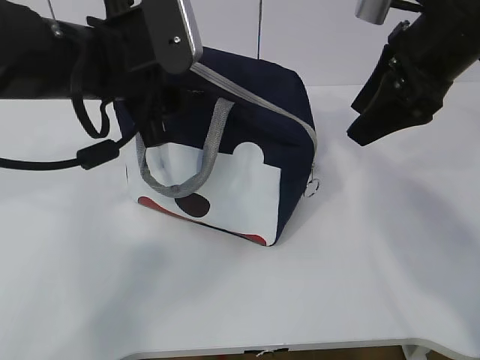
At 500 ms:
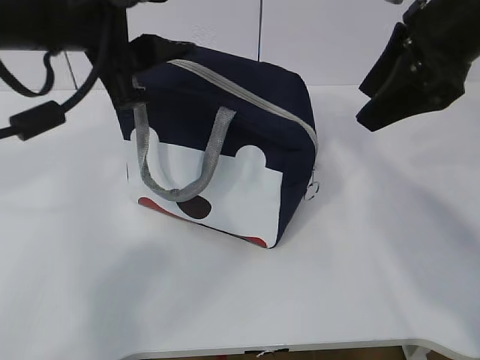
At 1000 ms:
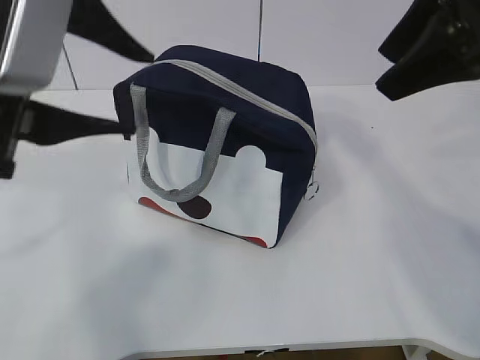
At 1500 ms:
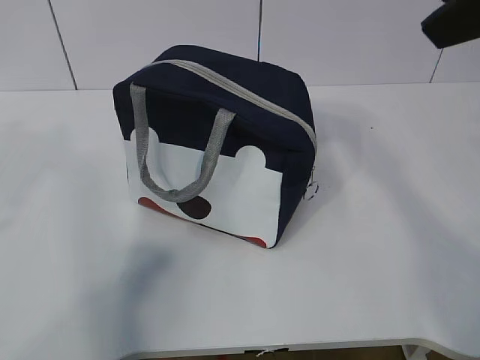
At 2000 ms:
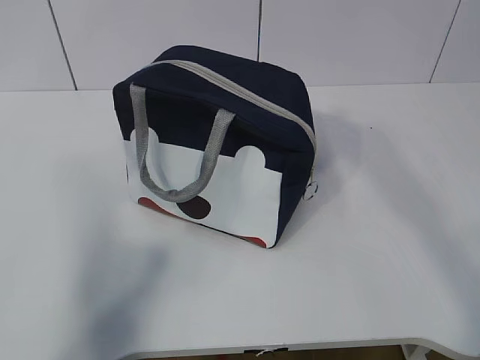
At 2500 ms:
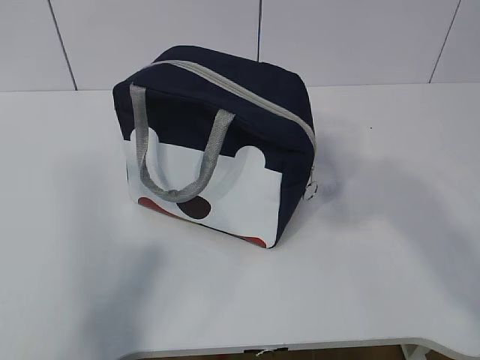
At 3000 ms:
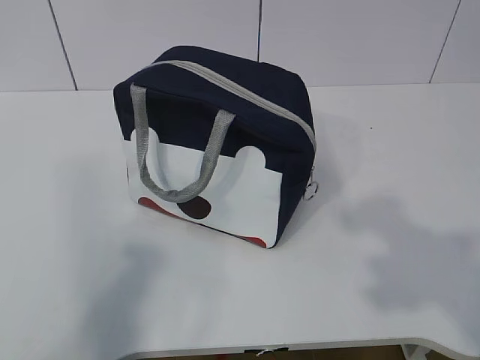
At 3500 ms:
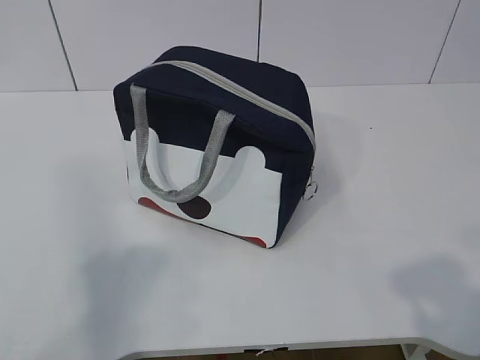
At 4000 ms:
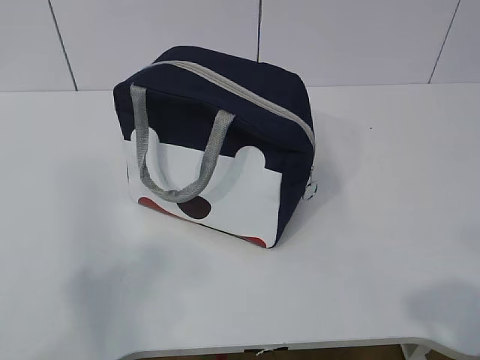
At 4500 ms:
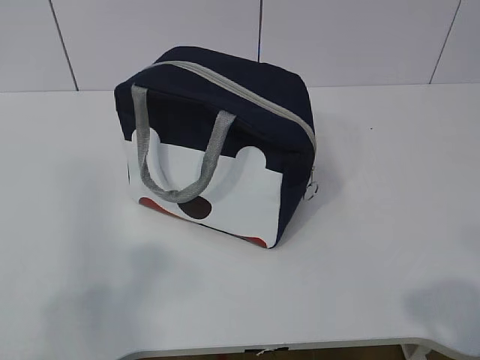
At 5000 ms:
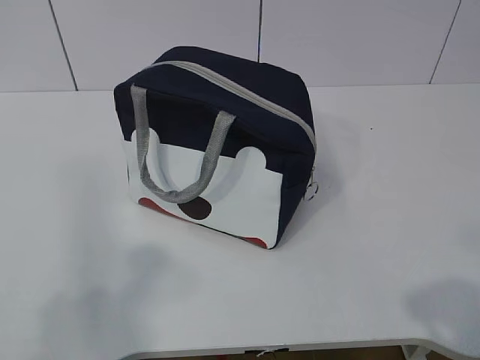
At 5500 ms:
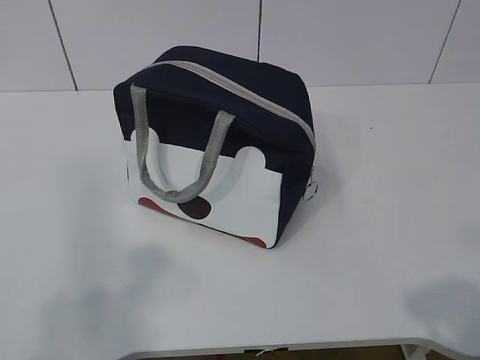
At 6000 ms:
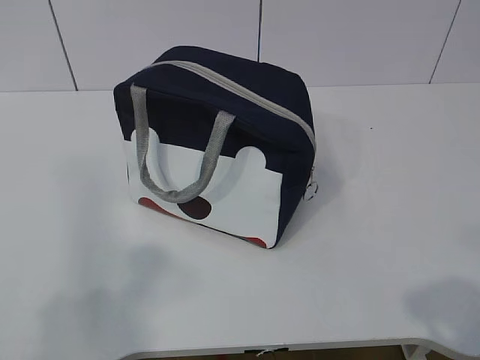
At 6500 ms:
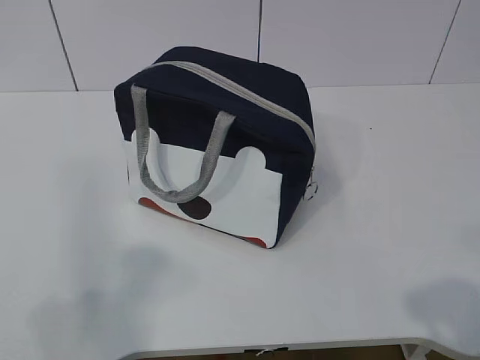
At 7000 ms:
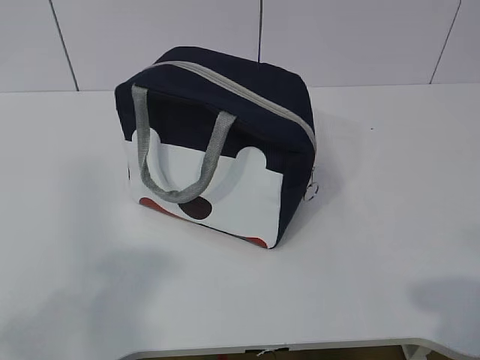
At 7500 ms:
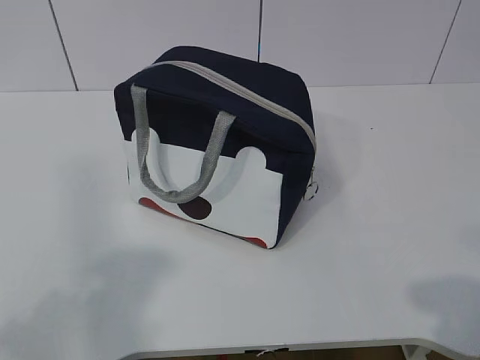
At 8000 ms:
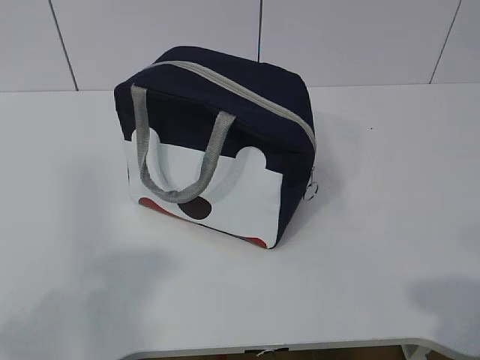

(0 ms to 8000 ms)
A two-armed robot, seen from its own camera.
0 ms - 2000 ms: The left gripper goes some 25 cm backward, to the left and upward, while the right gripper is displaced backward and upward by about 25 cm.
2000 ms - 4000 ms: The left gripper heads backward and downward, covering some 15 cm, while the right gripper goes some 25 cm downward and backward.

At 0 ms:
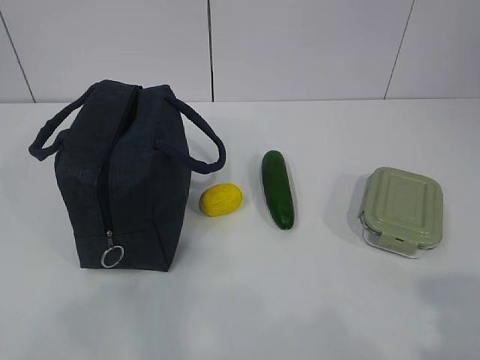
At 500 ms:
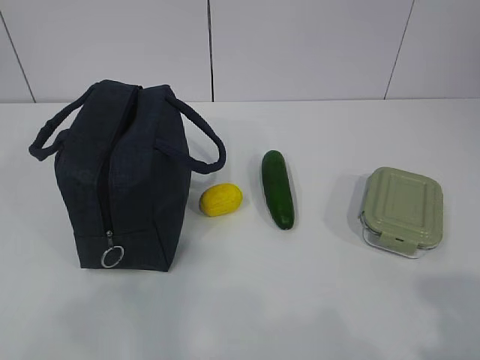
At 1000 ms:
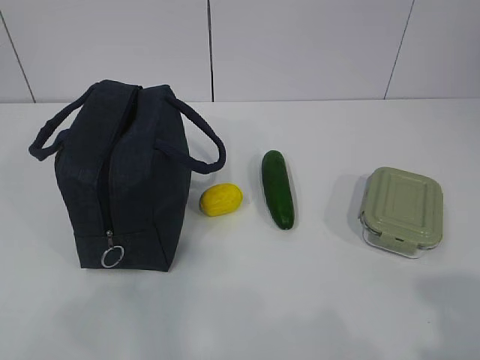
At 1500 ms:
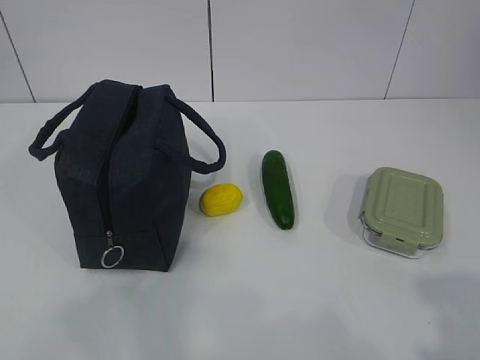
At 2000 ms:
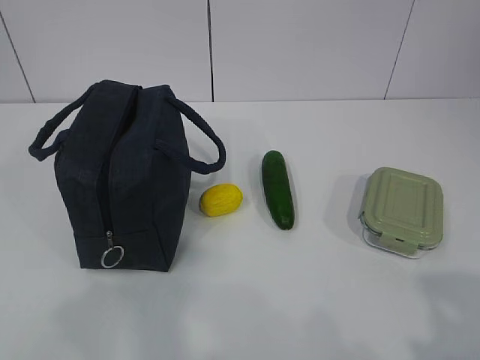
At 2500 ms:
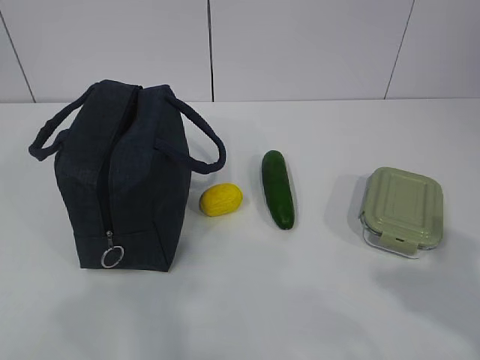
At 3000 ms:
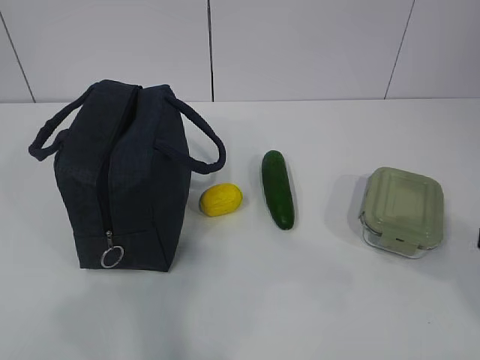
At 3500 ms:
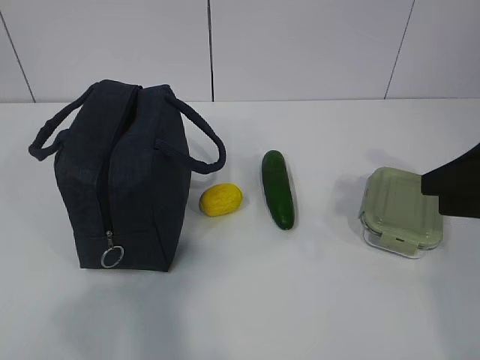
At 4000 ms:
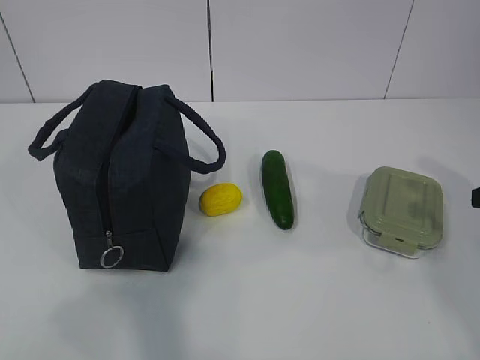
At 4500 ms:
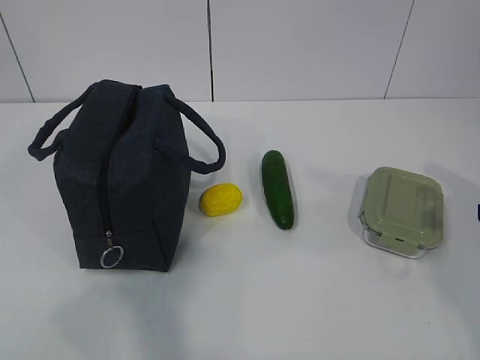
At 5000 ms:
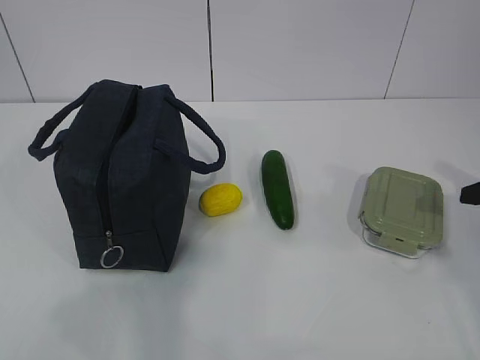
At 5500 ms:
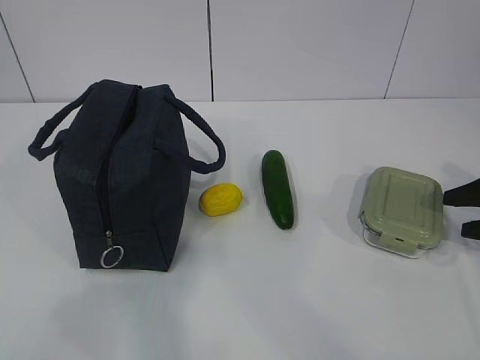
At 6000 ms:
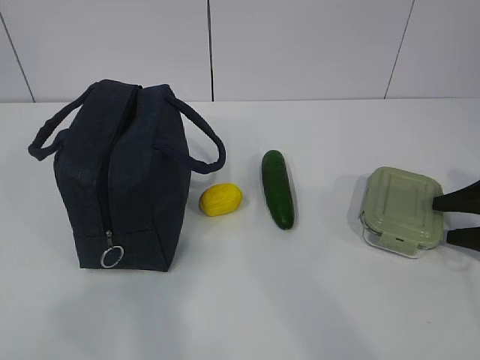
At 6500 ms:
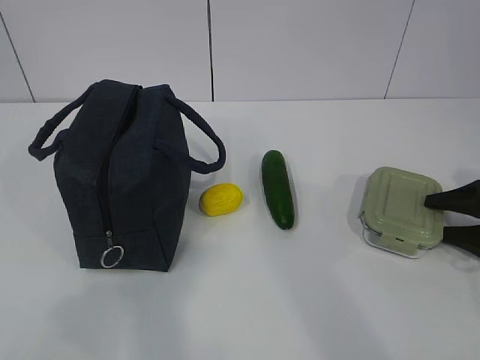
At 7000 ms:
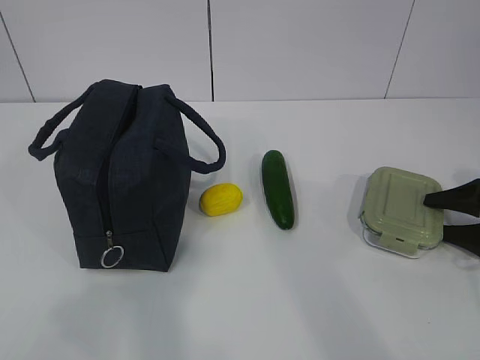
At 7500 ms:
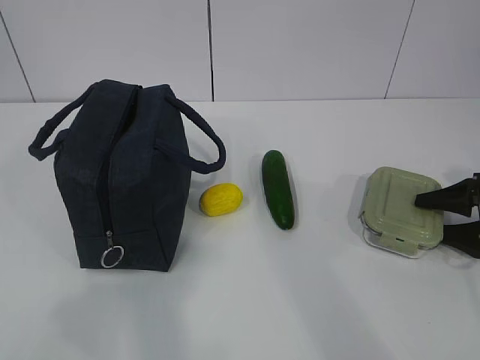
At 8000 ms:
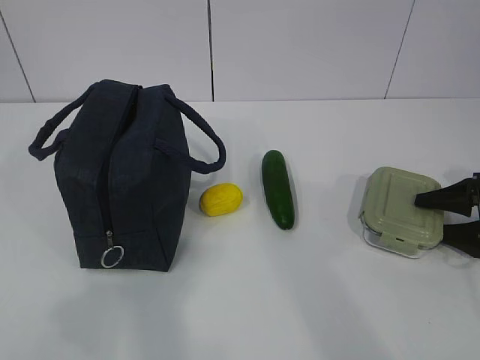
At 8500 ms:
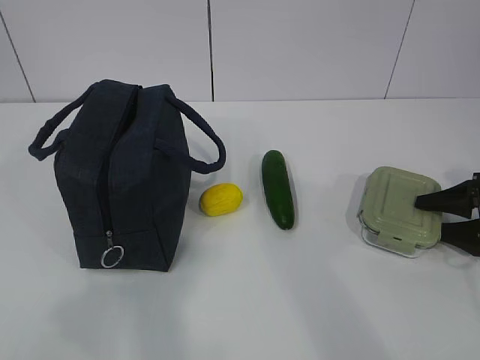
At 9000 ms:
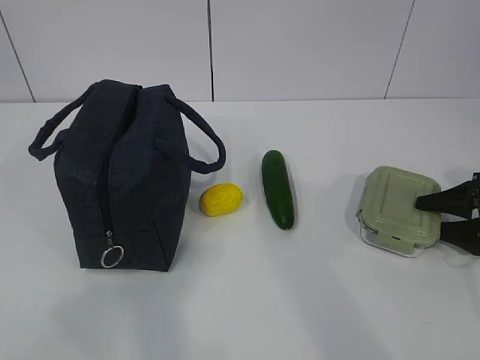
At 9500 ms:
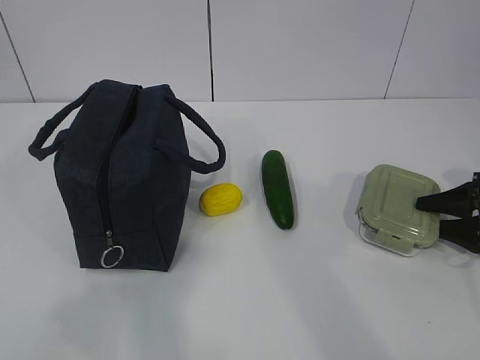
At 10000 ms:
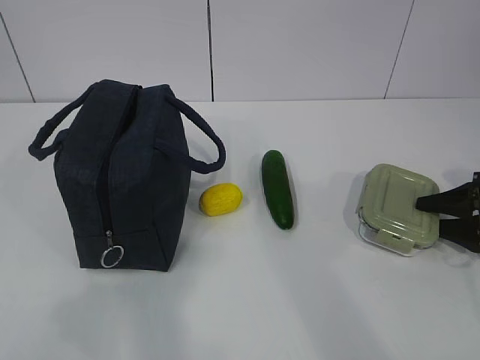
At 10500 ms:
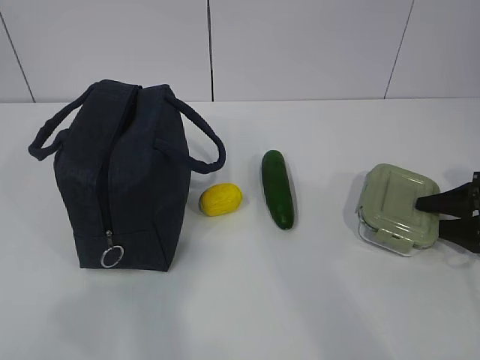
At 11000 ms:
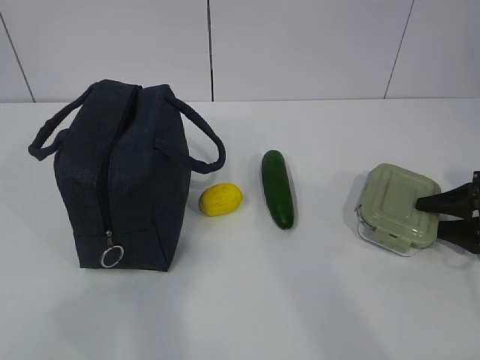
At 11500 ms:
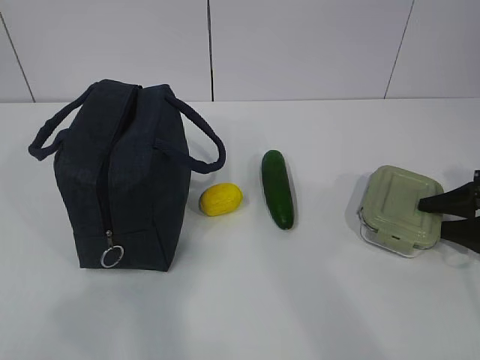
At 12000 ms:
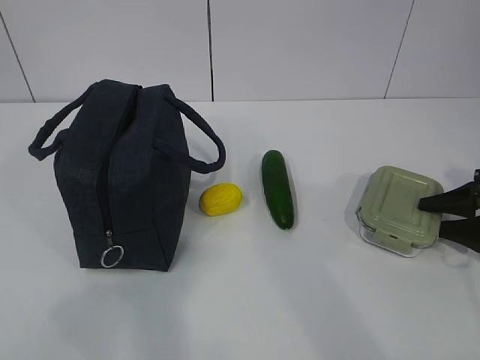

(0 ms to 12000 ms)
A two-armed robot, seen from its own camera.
Step, 0 ms - 10500 ms: Grab the lunch box with your right hand.
4000 ms - 6000 ms: The right gripper is displaced downward, forward and to the right by approximately 15 cm, and opens up.
8000 ms - 12000 ms: The two grippers keep their place.

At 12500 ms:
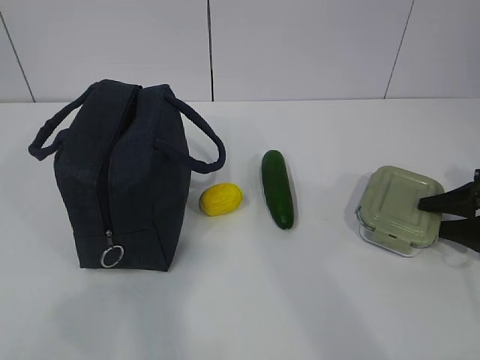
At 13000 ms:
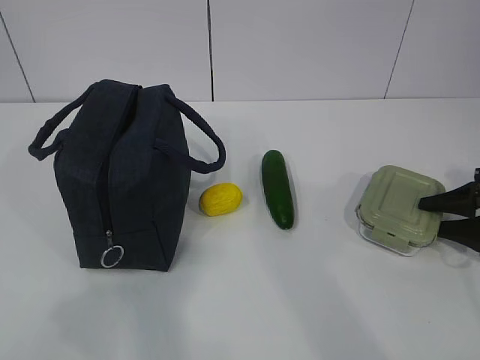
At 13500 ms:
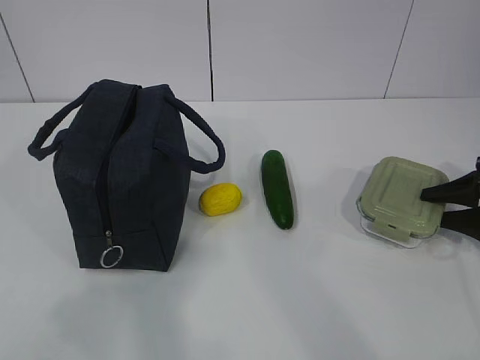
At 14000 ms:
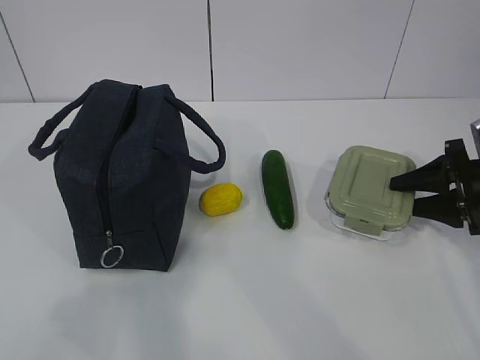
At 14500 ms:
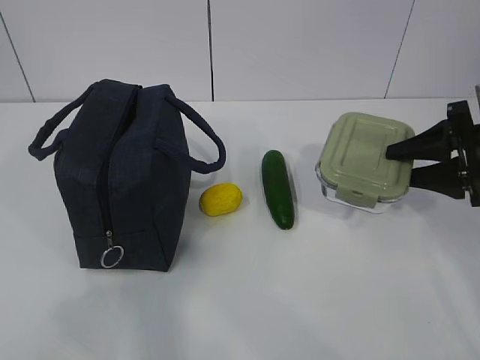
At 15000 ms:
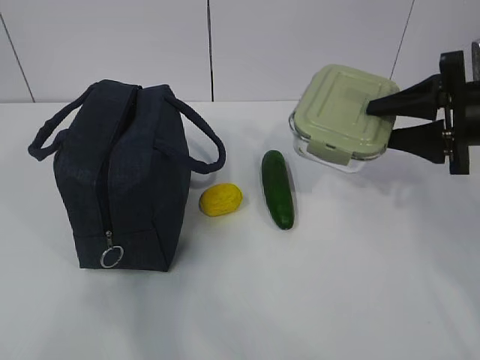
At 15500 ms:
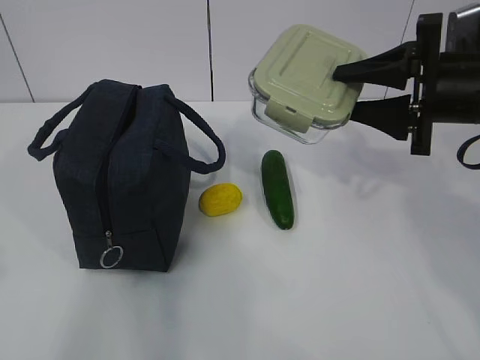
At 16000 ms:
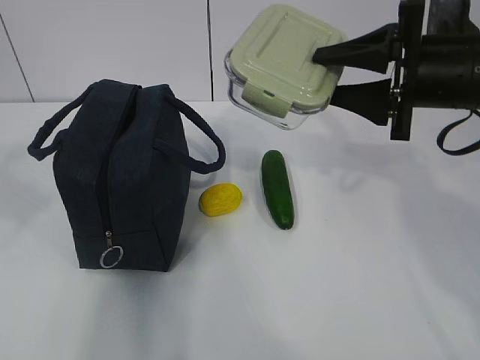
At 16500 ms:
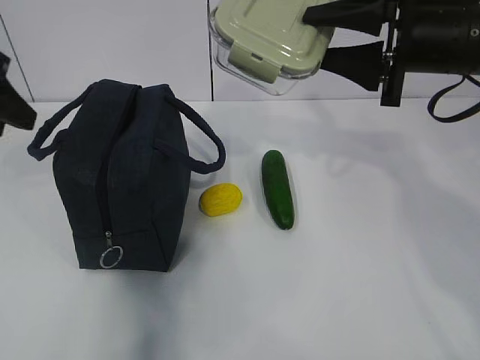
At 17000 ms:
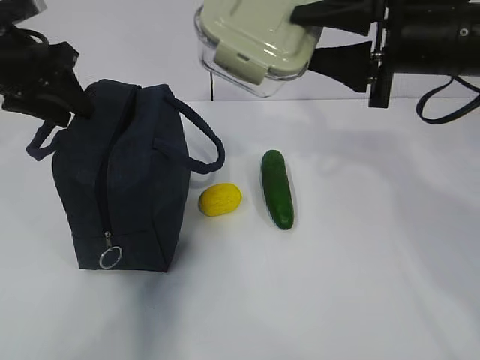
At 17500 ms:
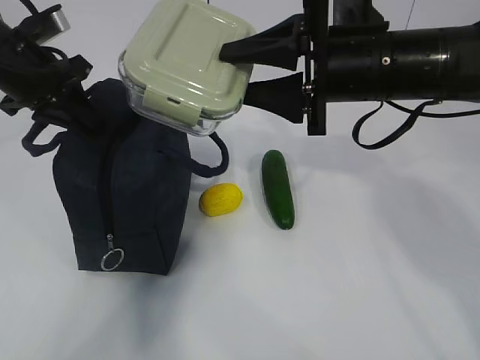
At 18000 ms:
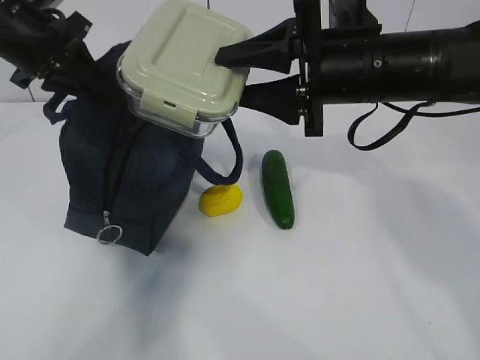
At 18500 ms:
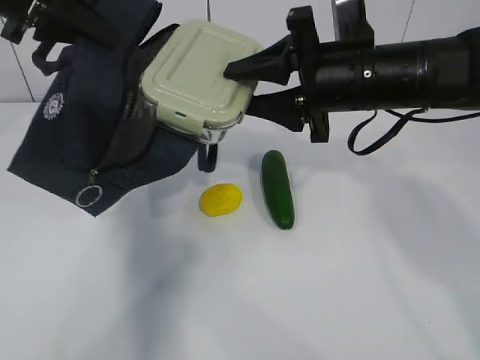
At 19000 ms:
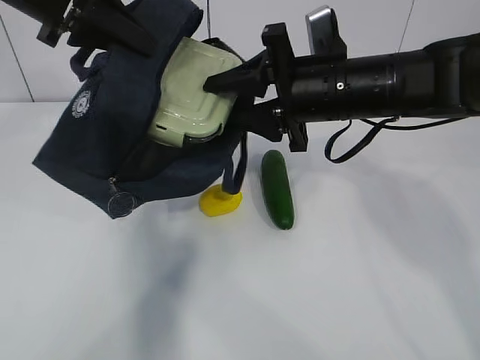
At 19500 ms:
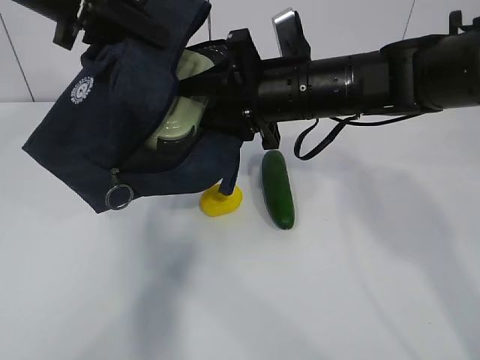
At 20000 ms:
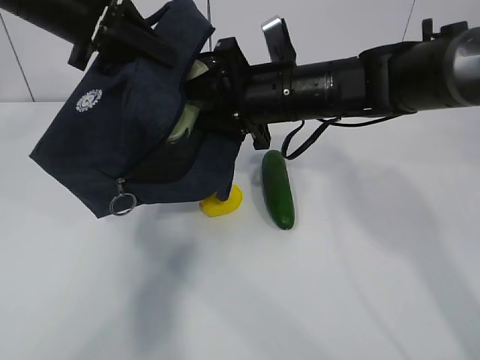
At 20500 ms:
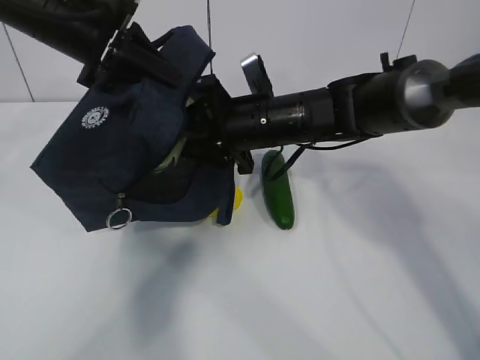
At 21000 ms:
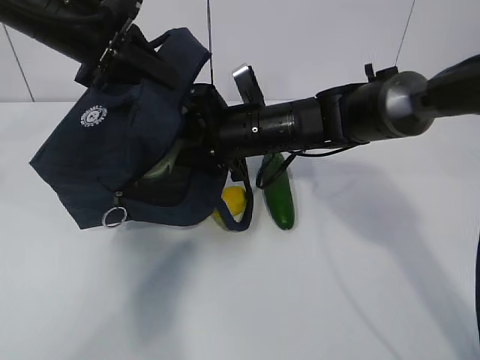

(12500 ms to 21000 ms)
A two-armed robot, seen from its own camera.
Step, 15500 ms - 17500 ms: Place it into the bag with your right hand.
12500 ms - 14500 ms: The right gripper is displaced upward and to the left by some 15 cm.
14500 ms - 16500 ms: The left gripper shifts about 25 cm forward, while the right gripper goes some 15 cm upward and to the left.
16500 ms - 19000 ms: The right gripper moves to the left and downward, some 10 cm, while the left gripper moves to the right and forward, about 10 cm, and closes.
19000 ms - 21000 ms: The left gripper shifts approximately 5 cm downward. The right gripper moves downward, to the left and forward, some 10 cm.
